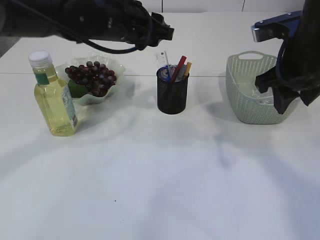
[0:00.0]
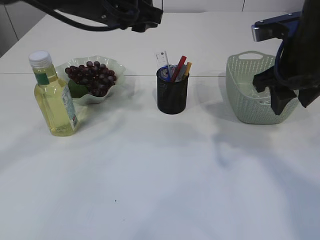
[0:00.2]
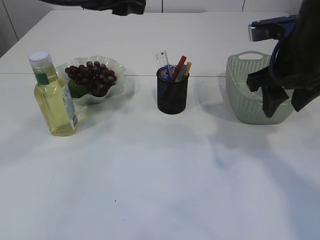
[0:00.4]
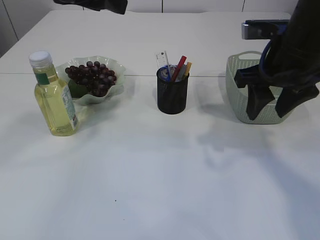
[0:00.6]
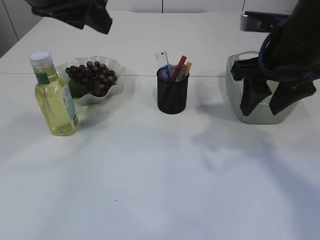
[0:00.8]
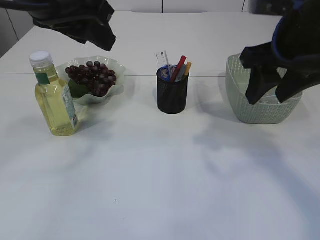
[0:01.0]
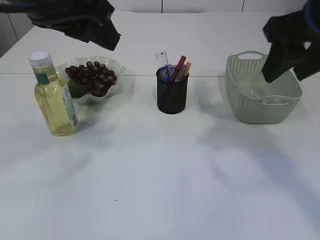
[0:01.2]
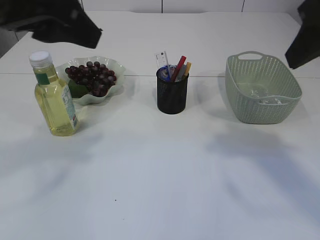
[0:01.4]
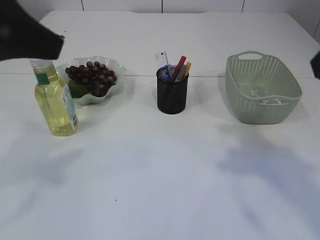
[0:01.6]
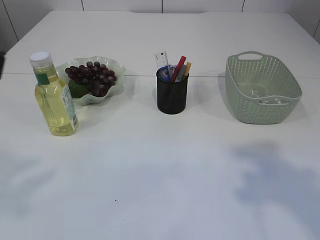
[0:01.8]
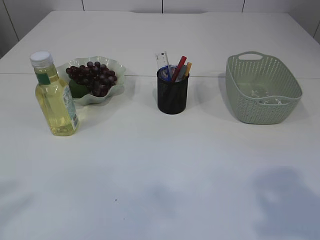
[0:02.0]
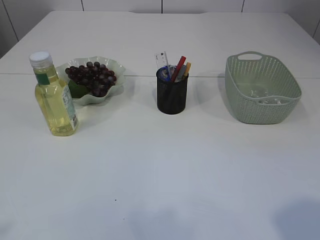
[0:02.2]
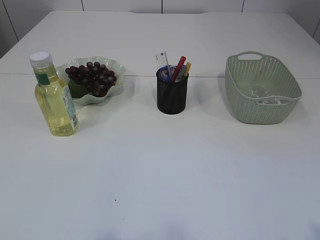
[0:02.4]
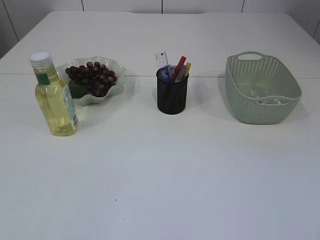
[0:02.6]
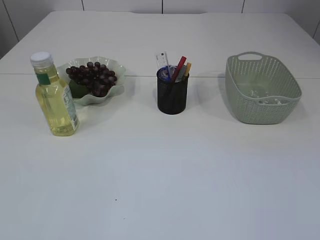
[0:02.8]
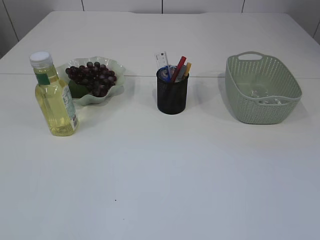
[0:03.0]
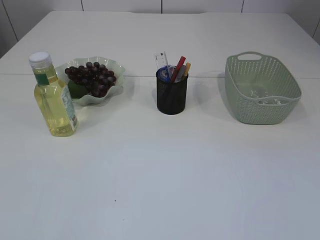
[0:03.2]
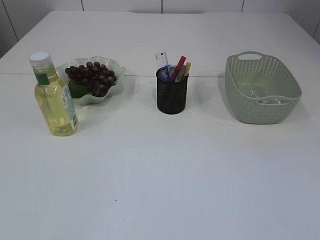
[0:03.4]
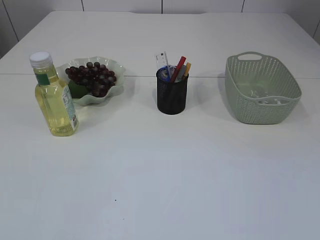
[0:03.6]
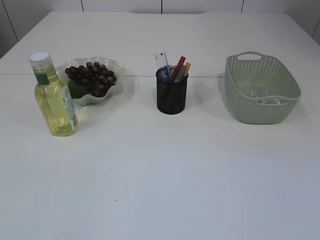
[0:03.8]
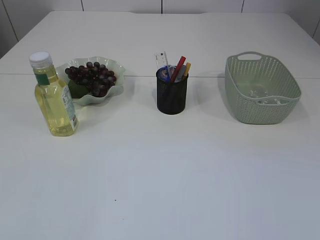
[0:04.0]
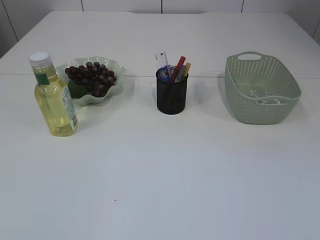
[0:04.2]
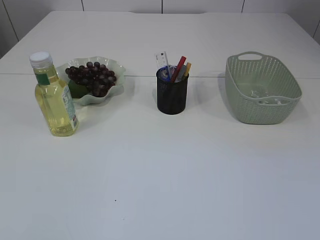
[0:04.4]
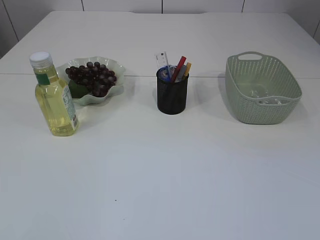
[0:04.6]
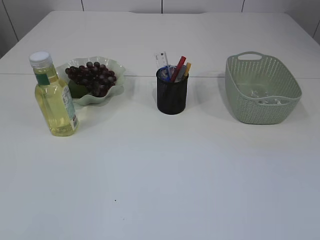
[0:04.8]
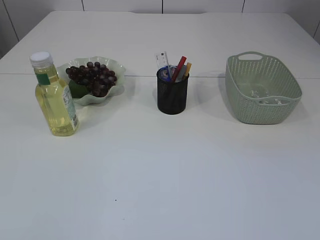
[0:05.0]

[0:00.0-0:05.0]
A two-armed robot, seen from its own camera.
0:00.0 to 0:01.6: The right gripper travels backward and upward by roughly 15 cm; the left gripper goes approximately 25 cm backward, upward and to the left.
0:01.6 to 0:03.4: The right gripper goes about 25 cm backward and downward. Meanwhile the left gripper is displaced backward, to the left and downward by approximately 25 cm.

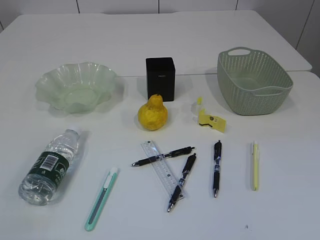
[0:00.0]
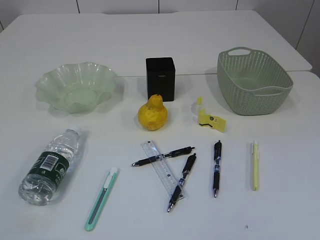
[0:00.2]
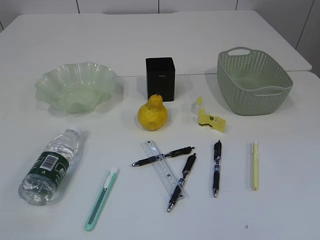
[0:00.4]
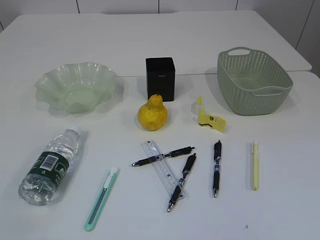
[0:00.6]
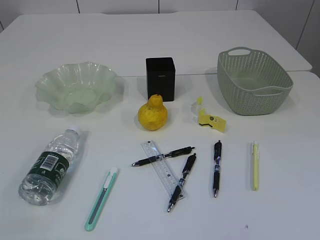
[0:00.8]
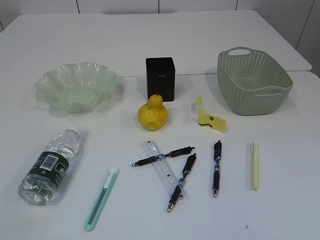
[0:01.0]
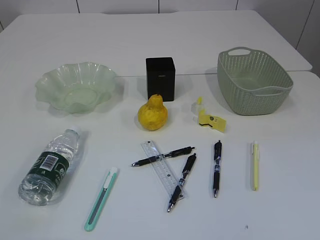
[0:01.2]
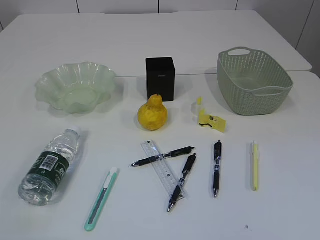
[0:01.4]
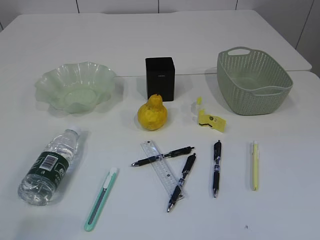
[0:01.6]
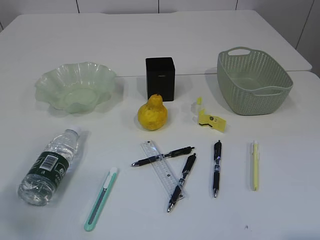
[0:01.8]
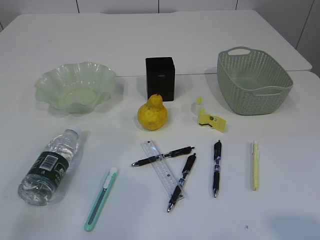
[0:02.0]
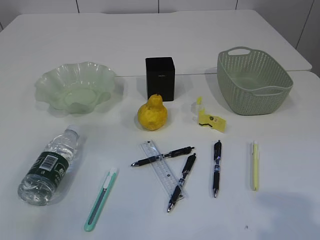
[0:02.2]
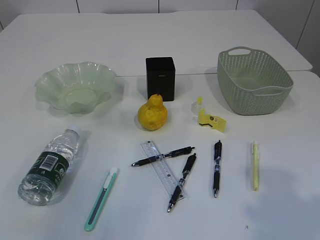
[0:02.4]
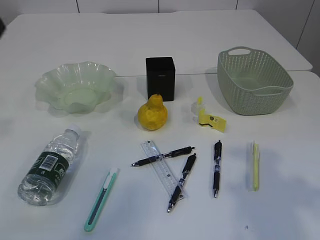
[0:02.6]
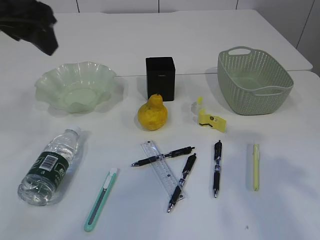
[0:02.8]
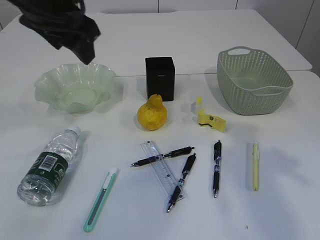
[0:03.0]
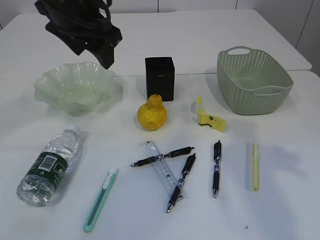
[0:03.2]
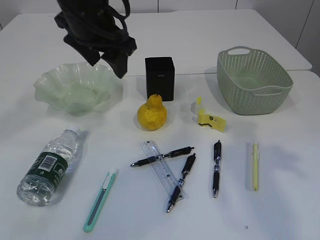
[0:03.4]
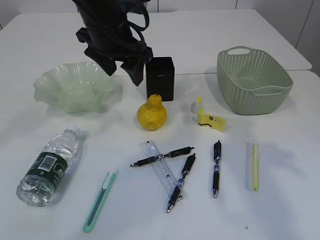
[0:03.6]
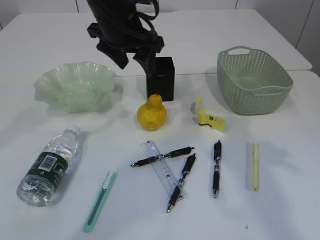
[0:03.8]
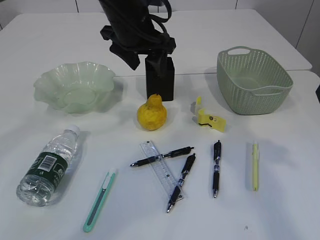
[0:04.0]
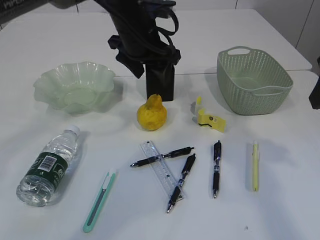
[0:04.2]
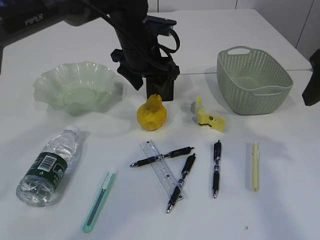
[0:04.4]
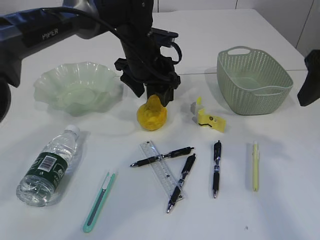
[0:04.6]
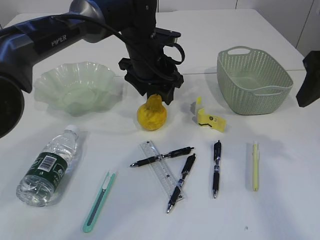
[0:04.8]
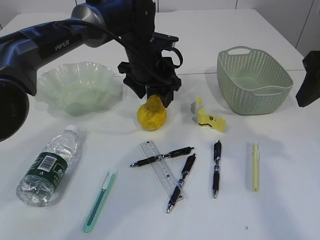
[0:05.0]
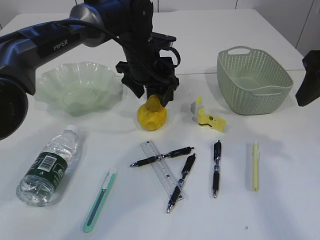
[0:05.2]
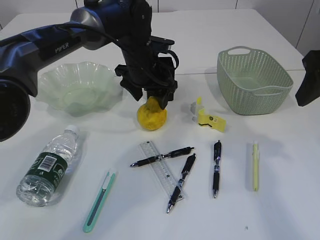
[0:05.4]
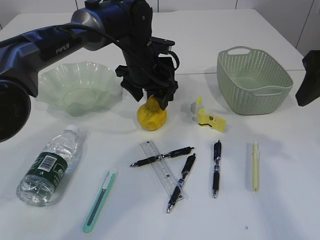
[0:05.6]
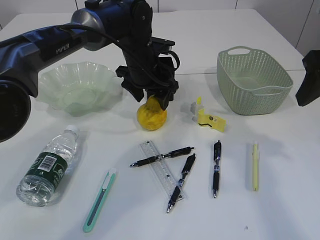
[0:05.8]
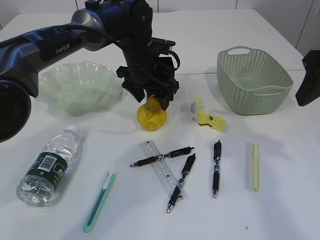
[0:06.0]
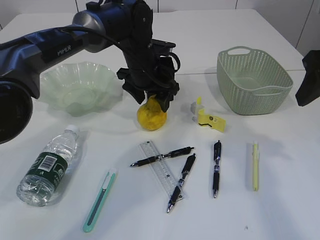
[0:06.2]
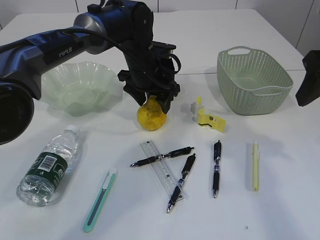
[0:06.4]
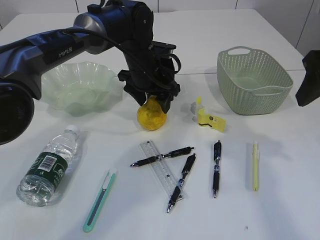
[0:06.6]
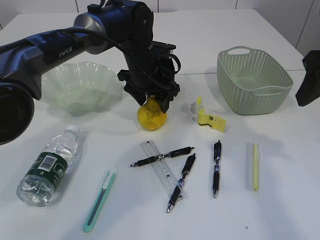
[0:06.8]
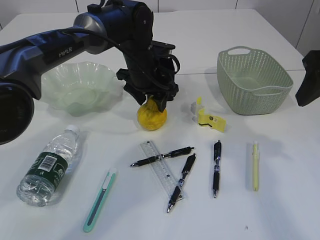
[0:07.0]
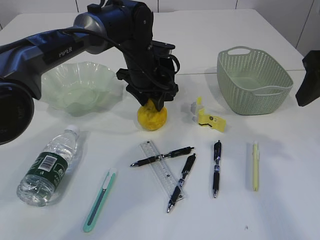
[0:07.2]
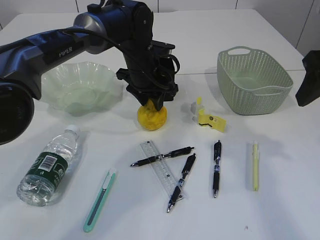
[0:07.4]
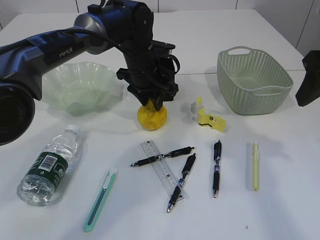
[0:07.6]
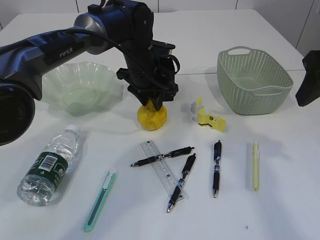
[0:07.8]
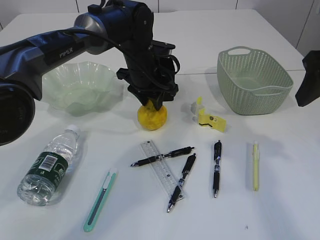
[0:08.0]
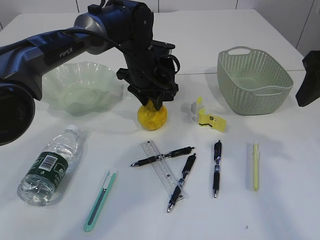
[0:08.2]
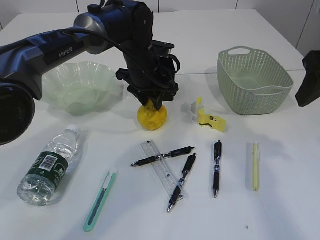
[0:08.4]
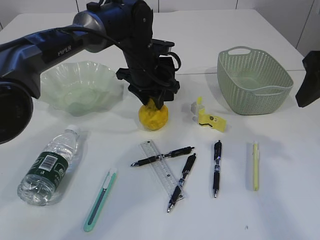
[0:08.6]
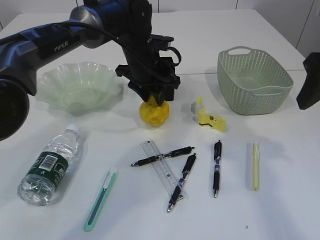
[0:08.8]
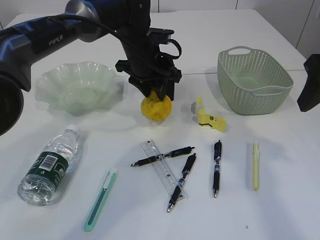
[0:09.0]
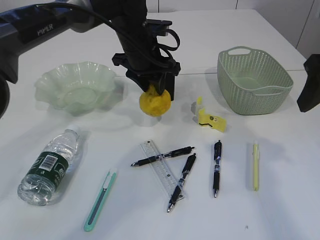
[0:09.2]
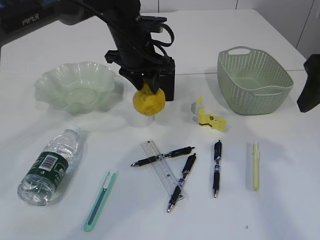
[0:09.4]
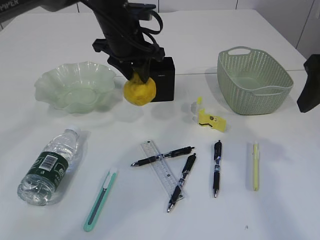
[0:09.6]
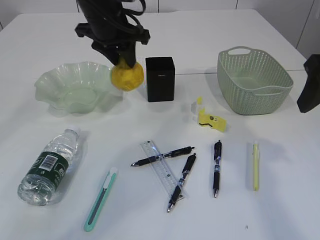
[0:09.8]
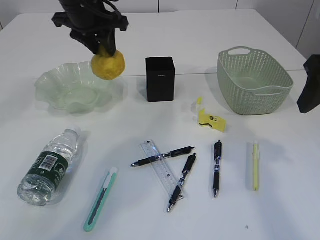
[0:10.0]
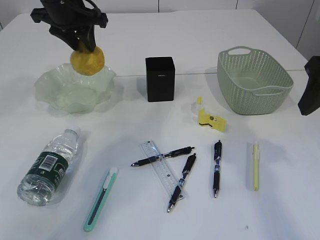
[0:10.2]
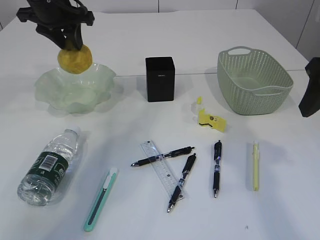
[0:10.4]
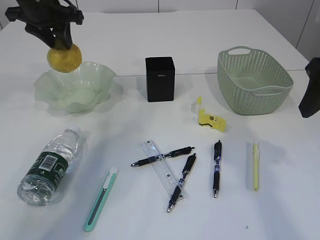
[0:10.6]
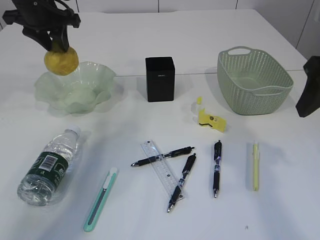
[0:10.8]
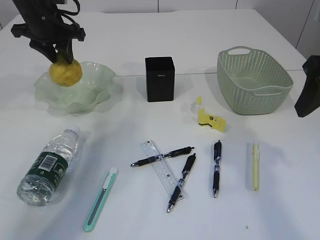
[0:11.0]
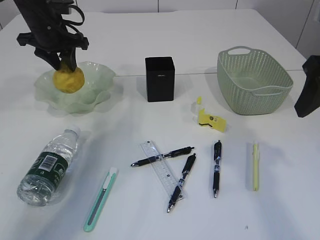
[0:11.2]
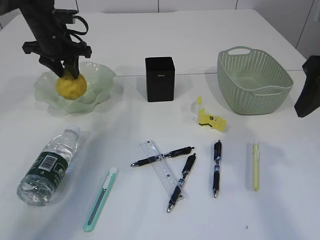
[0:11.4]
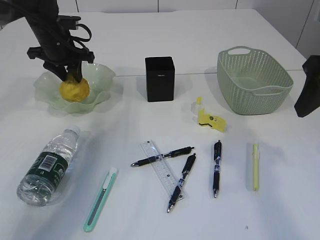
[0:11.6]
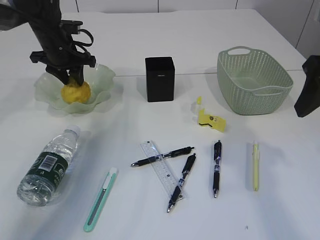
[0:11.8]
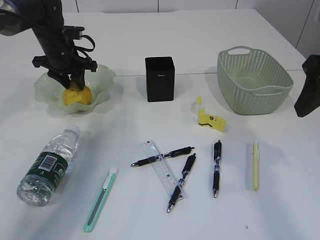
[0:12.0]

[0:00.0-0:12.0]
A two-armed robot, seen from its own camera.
0:01.6 to 0:03.0: The right gripper moves forward and upward, about 25 cm, while the left gripper shifts about 35 cm forward and to the right.
0:03.0 to 0:04.4: The right gripper moves forward, about 5 cm. The left gripper moves downward, to the right and forward, roughly 20 cm.
0:04.4 to 0:06.0: The left gripper goes about 5 cm downward.
0:06.0 to 0:07.6: The left gripper closes up.
0:07.6 to 0:09.0: There are only small adjustments of the grippers.
0:09.0 to 0:10.4: The left gripper travels to the left and upward by about 20 cm.
0:10.4 to 0:12.0: The left gripper moves downward, roughly 10 cm.

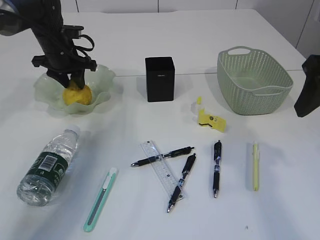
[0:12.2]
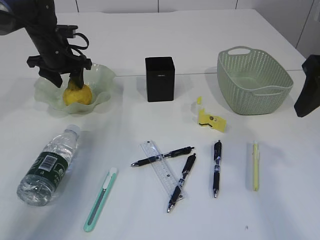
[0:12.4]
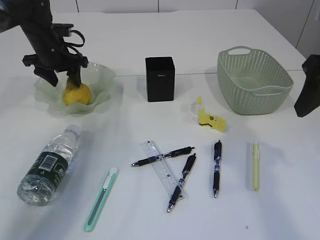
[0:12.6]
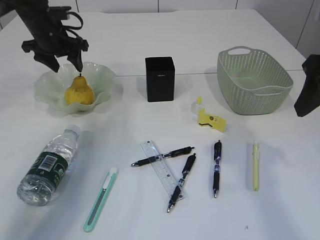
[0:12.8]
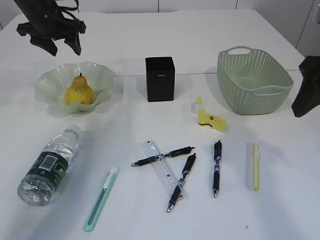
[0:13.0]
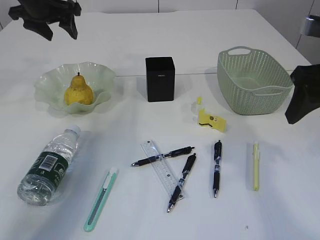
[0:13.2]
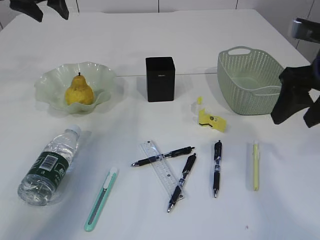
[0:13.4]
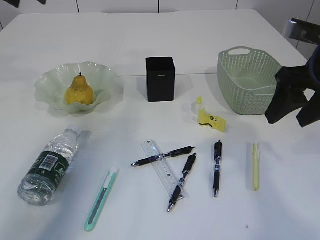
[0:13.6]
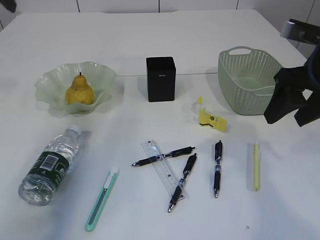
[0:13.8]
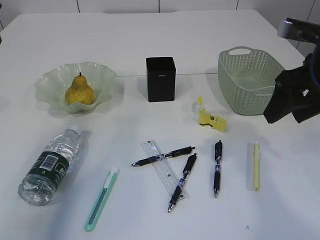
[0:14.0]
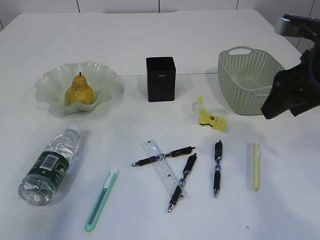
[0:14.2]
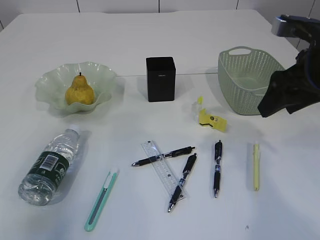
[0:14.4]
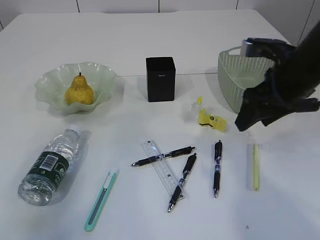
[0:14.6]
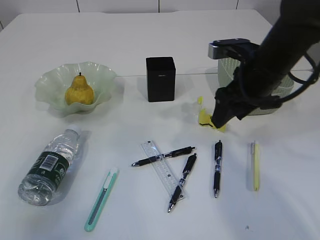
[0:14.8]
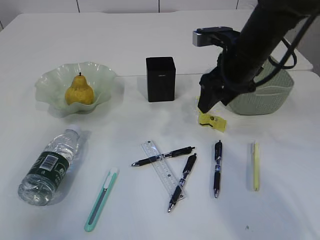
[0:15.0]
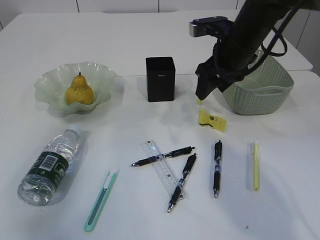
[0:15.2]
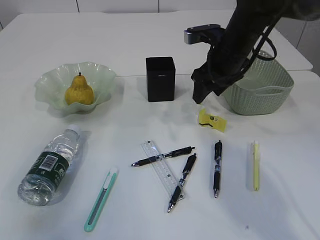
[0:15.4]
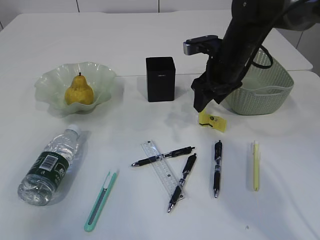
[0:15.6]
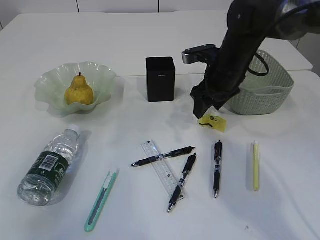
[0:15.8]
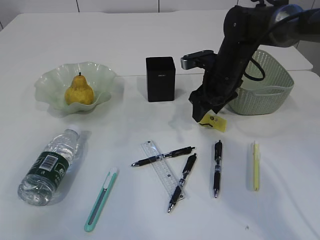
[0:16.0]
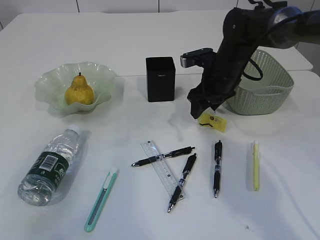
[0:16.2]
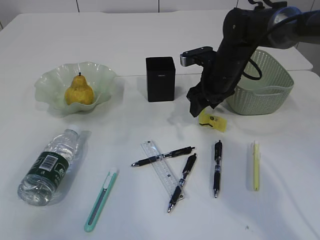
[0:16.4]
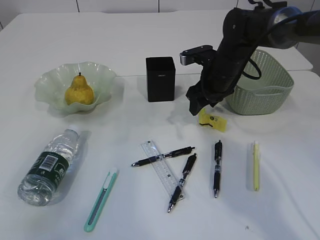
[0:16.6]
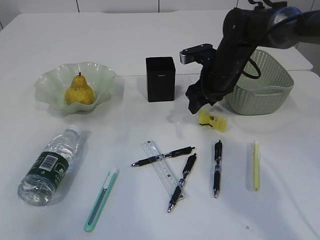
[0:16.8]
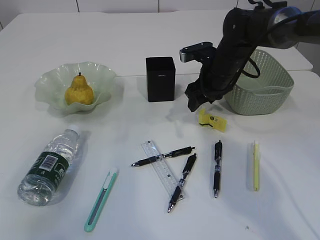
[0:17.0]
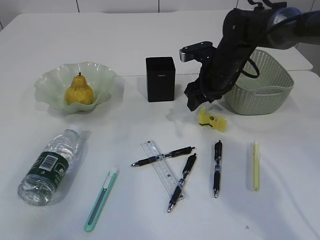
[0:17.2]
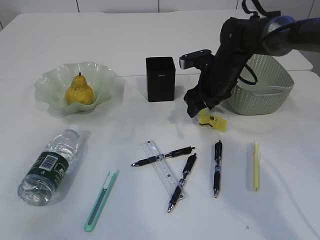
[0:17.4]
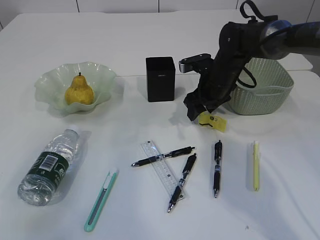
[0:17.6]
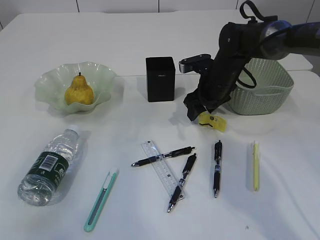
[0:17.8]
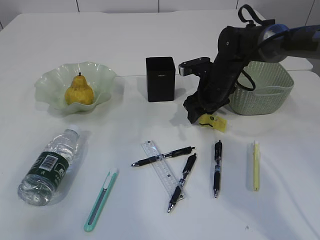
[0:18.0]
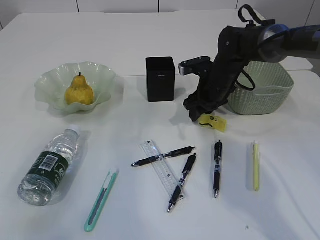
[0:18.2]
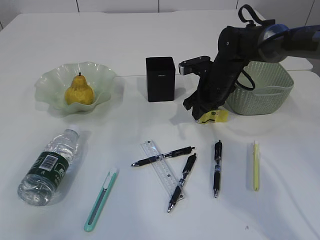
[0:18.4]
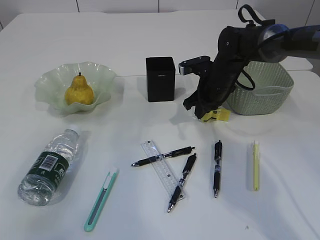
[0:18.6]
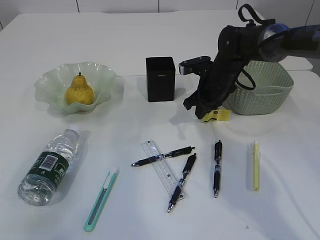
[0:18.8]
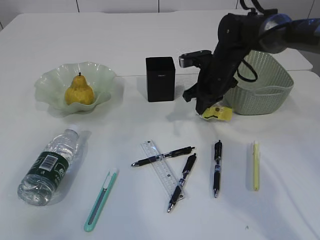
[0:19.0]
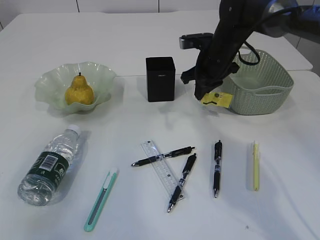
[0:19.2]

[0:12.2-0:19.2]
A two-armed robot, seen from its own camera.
0:12.2 to 0:13.6: The left gripper travels upward by about 20 cm.
0:13.6 to 0:15.0: The left gripper heads backward, covering roughly 15 cm. The right gripper moves forward and to the left, approximately 15 cm.
0:15.0 to 0:16.4: The right gripper travels forward and downward by roughly 10 cm.
0:16.4 to 0:17.8: The grippers stay close to where they were, moving slightly.
0:17.8 to 0:19.2: The right gripper goes some 5 cm upward, and closes up.
